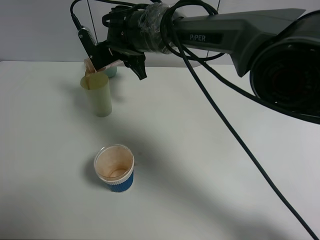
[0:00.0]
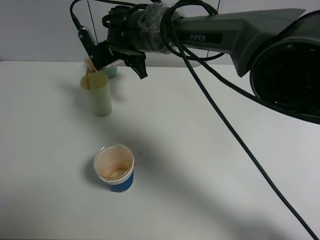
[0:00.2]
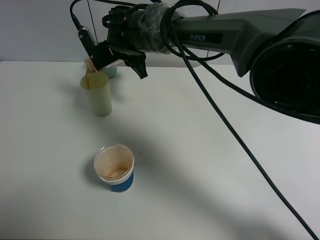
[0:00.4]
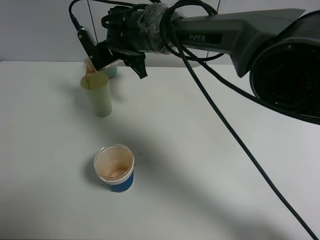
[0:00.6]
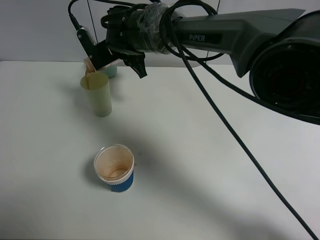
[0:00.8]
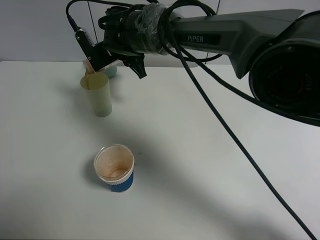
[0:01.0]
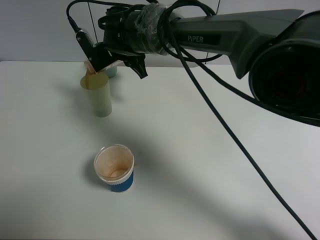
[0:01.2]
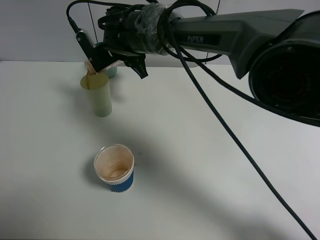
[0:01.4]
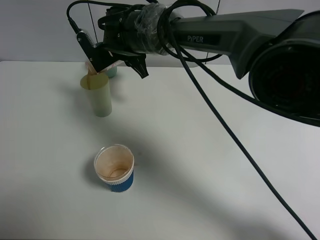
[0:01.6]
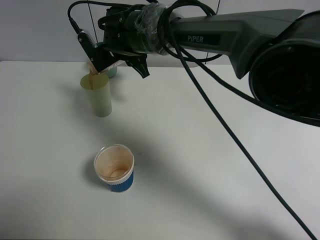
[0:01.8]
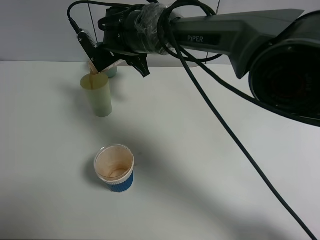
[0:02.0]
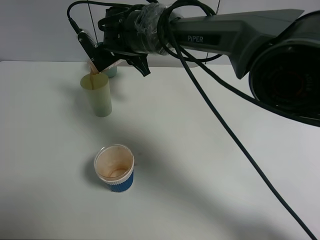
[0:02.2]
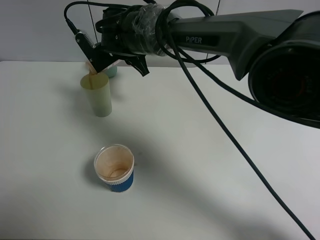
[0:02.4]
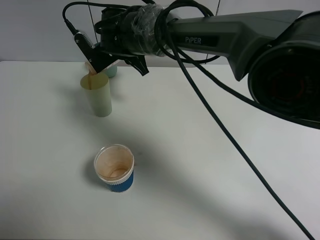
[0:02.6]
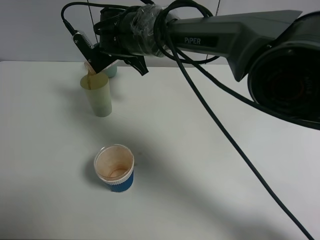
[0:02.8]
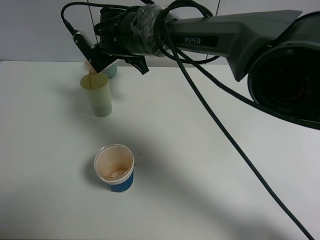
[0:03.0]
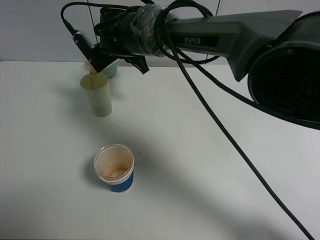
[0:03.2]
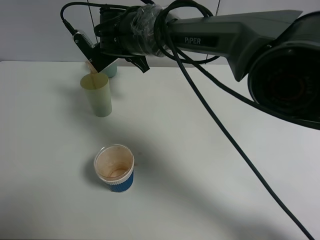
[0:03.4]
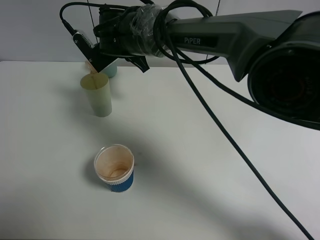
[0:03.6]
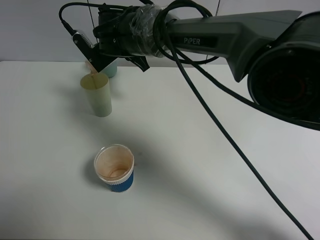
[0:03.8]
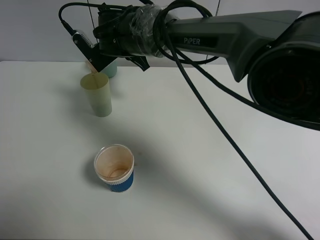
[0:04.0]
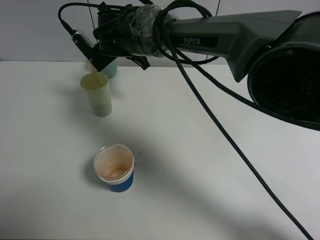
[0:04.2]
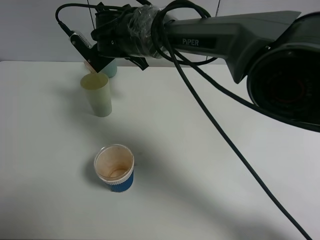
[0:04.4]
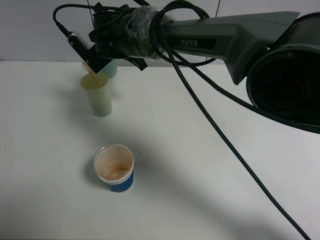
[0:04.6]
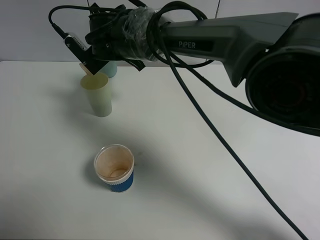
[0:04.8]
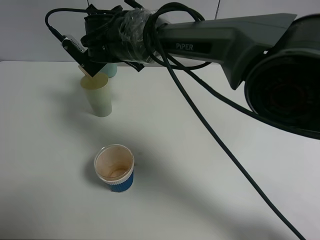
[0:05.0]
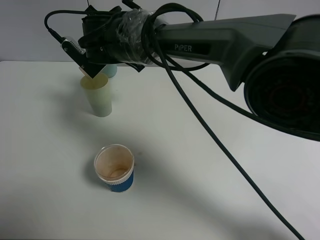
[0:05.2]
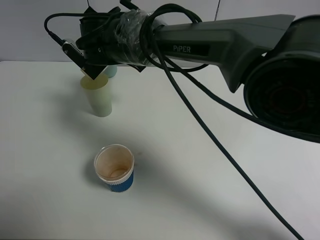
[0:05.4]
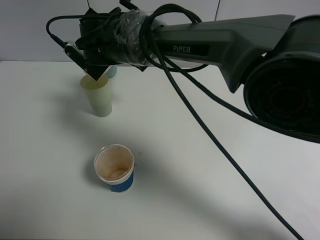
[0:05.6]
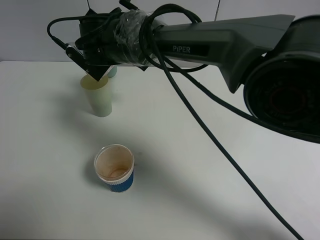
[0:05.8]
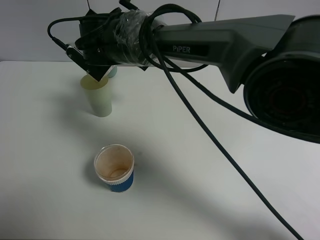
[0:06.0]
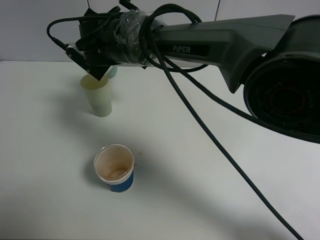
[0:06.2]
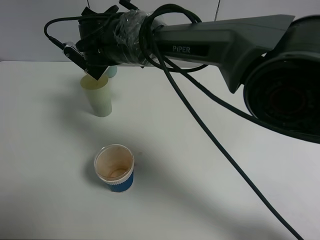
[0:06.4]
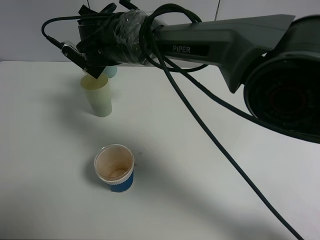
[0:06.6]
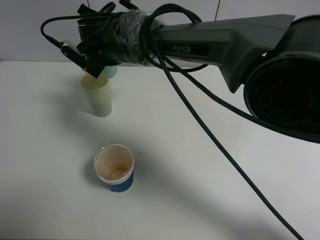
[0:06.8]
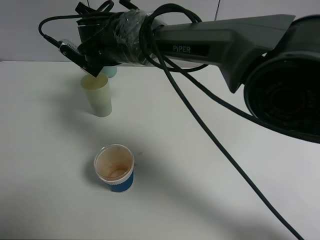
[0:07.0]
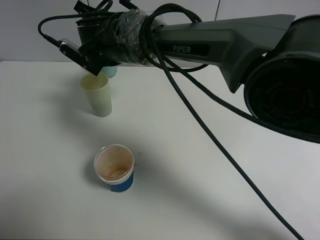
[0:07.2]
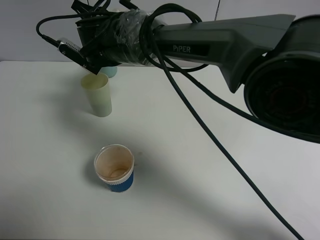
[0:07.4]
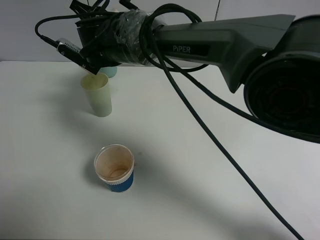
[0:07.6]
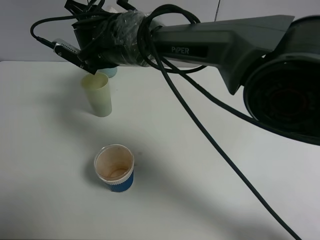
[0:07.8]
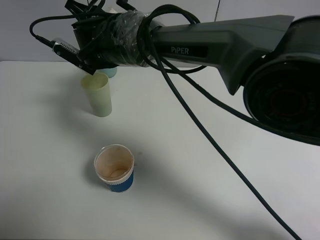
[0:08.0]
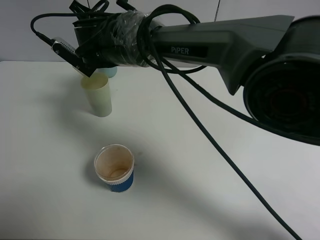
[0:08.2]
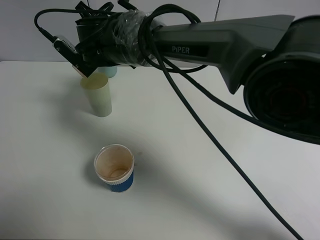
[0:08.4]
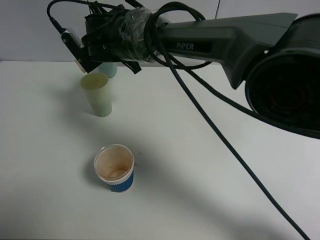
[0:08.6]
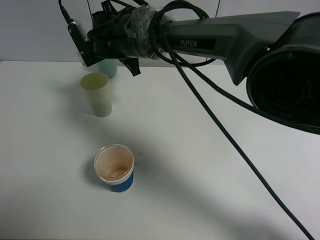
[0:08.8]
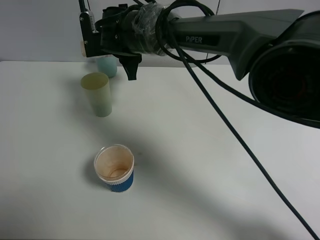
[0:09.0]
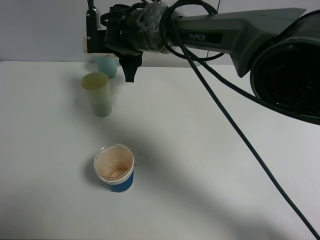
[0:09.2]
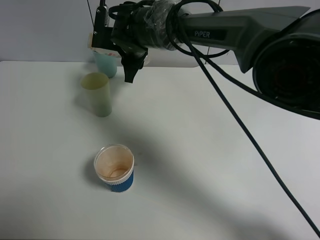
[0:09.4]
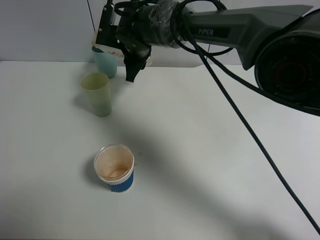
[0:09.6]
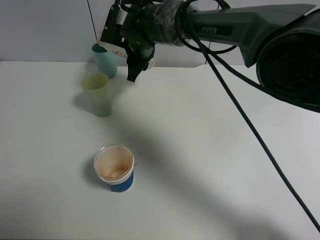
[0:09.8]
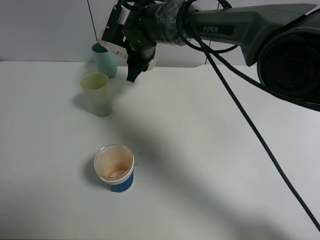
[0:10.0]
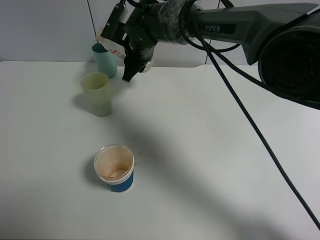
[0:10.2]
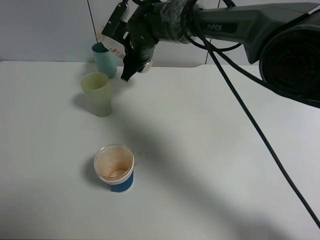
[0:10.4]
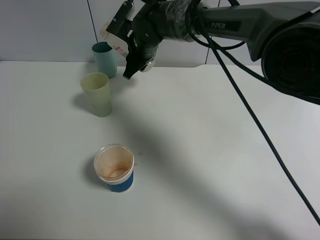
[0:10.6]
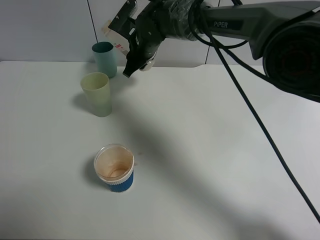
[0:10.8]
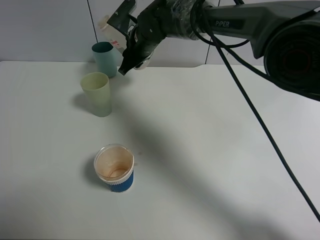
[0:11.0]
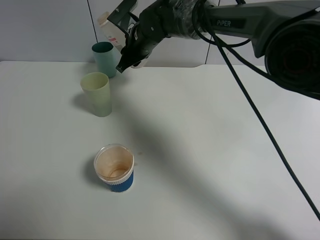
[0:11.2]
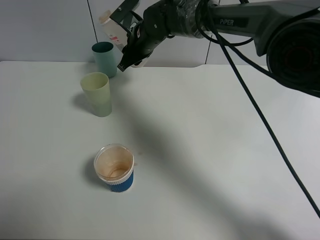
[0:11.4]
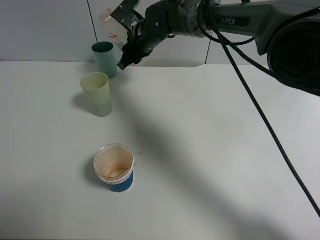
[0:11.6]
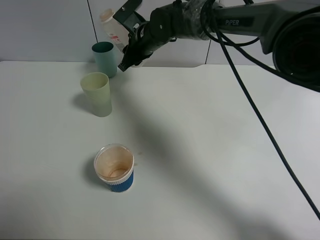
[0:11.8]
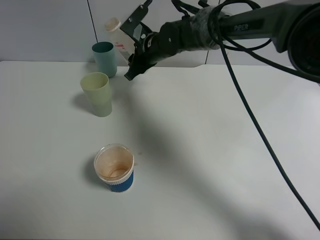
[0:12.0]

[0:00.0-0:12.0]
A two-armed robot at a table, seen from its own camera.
Task of the whole recording: use a clamp to hold the bottle of the drink, pour the beverage into a random cup, then clamp the cup containing the drink and pour the drink into another random cup.
Step, 0:00.0 to 0:08.2: Pour the drink into the green plastic cup with right gripper.
0:00.0 to 0:01.6: The two grippers keep their place.
0:01.6 to 0:04.4: The grippers move only a little.
0:04.4 to 0:07.6: The grippers move only a little.
0:10.4 to 0:12.0: The grippers make only small movements.

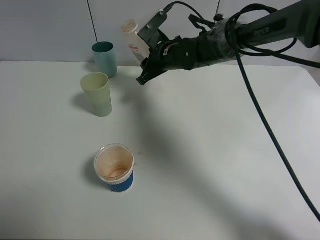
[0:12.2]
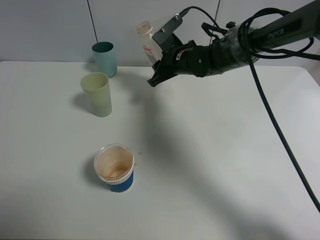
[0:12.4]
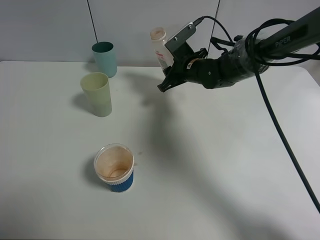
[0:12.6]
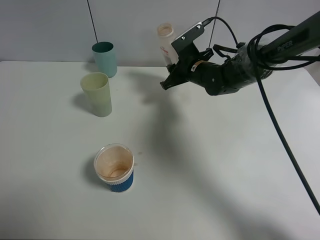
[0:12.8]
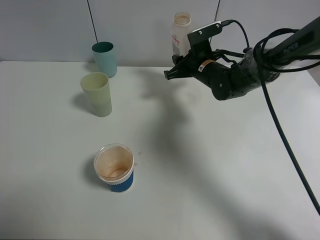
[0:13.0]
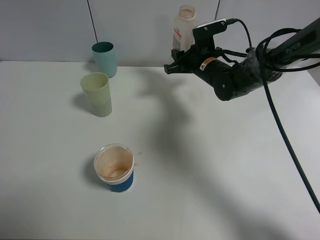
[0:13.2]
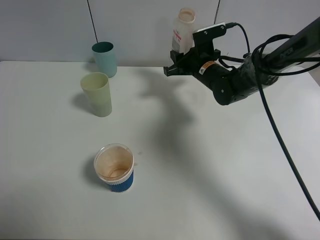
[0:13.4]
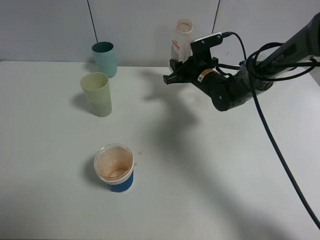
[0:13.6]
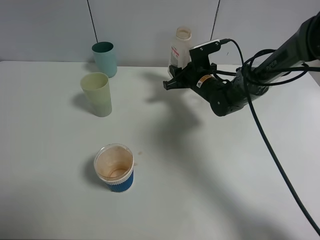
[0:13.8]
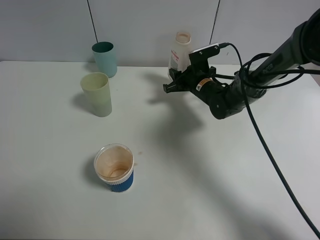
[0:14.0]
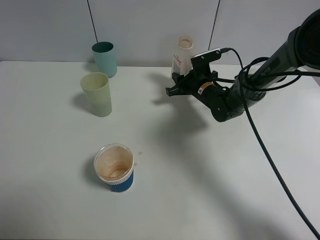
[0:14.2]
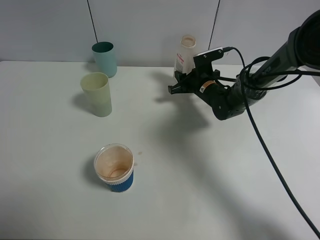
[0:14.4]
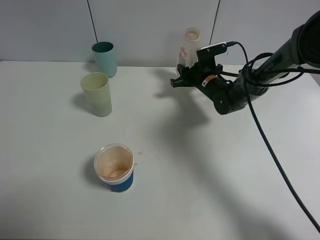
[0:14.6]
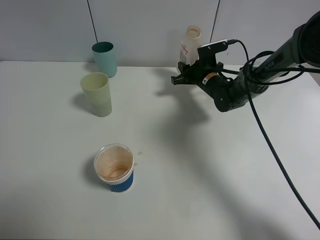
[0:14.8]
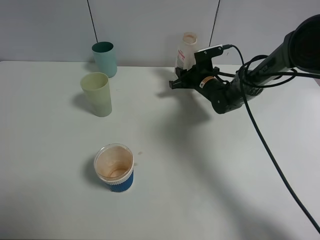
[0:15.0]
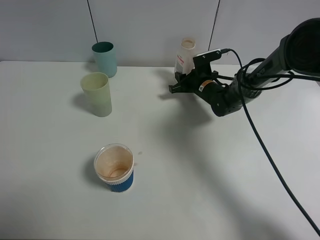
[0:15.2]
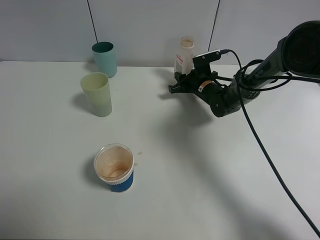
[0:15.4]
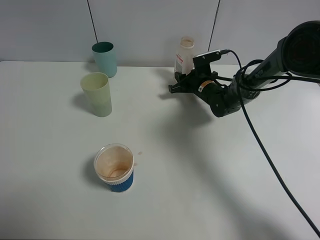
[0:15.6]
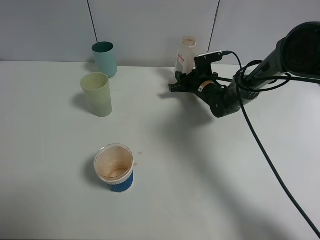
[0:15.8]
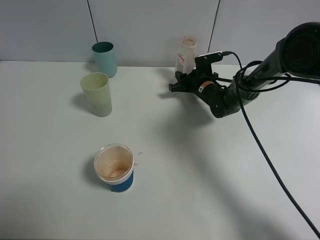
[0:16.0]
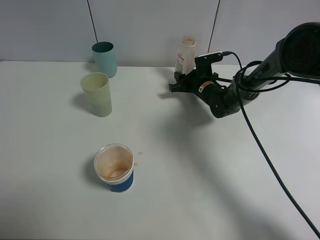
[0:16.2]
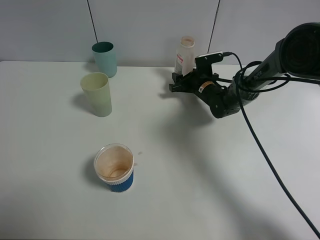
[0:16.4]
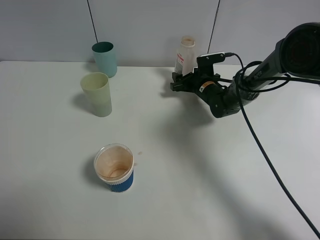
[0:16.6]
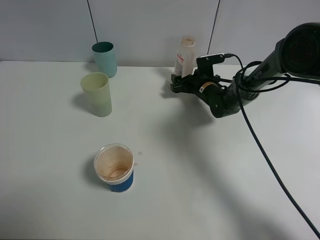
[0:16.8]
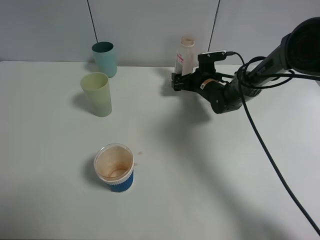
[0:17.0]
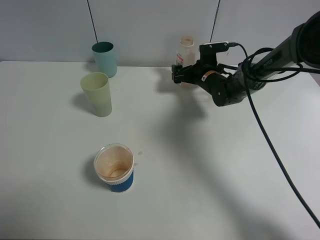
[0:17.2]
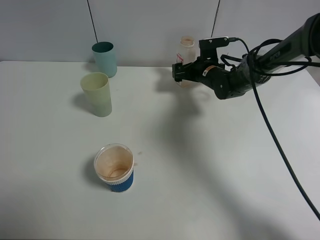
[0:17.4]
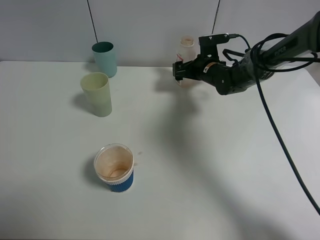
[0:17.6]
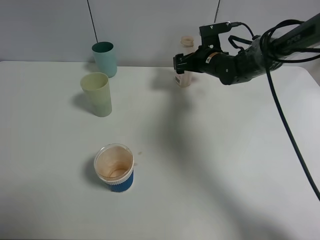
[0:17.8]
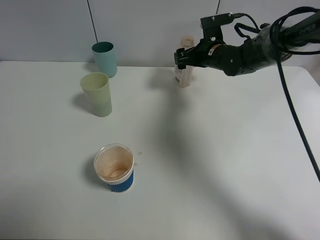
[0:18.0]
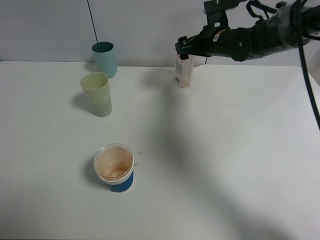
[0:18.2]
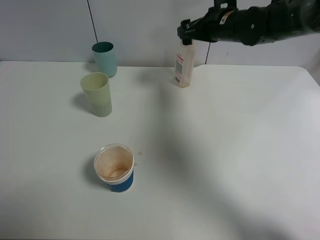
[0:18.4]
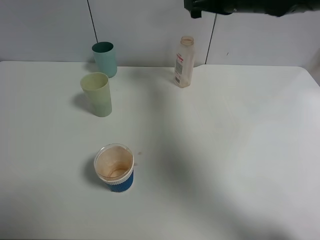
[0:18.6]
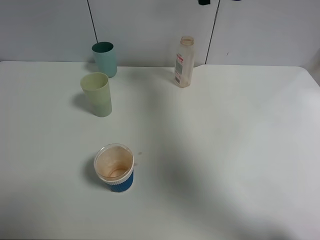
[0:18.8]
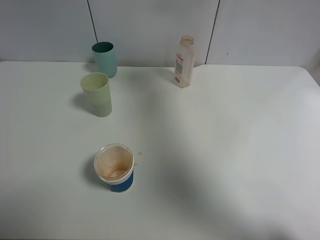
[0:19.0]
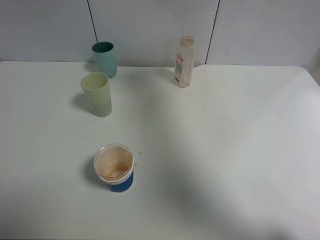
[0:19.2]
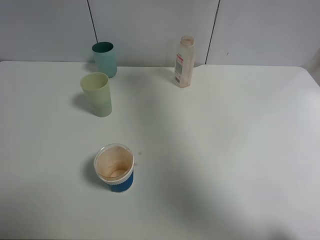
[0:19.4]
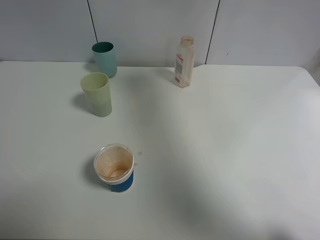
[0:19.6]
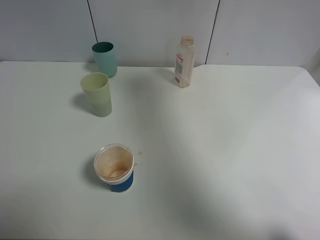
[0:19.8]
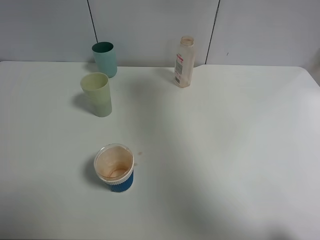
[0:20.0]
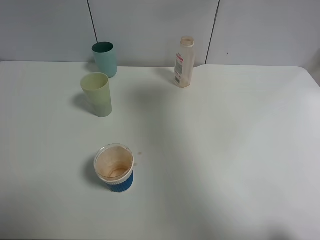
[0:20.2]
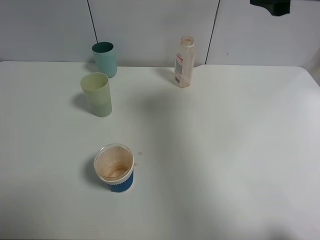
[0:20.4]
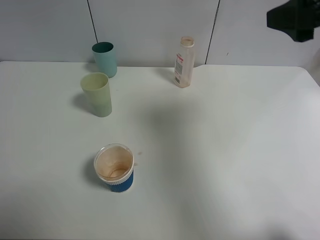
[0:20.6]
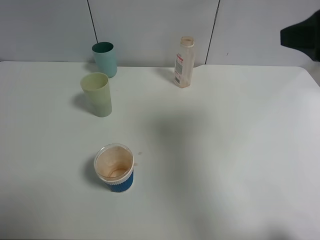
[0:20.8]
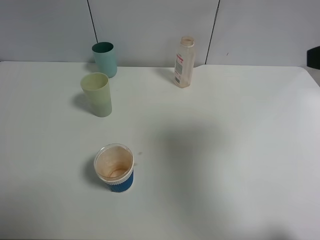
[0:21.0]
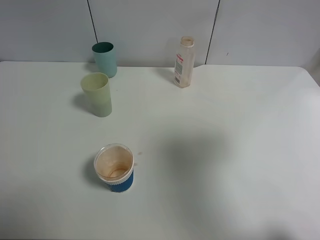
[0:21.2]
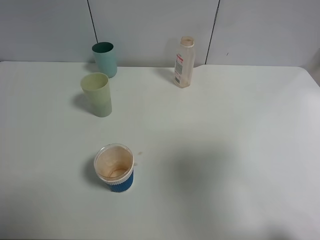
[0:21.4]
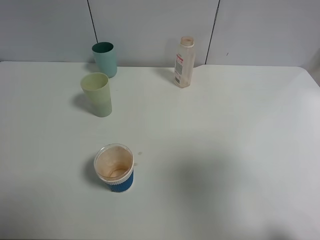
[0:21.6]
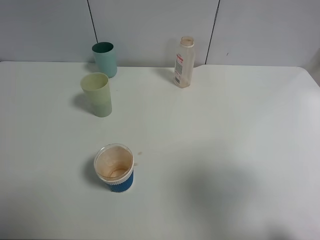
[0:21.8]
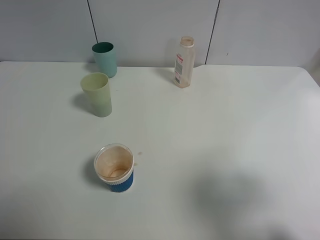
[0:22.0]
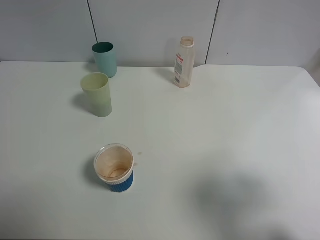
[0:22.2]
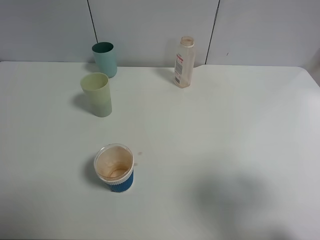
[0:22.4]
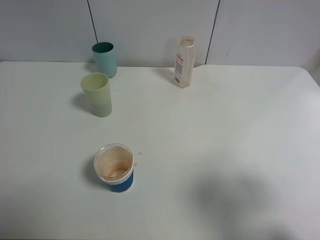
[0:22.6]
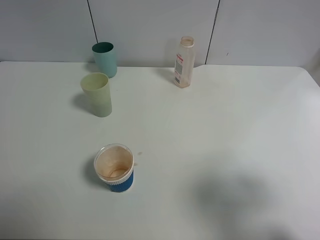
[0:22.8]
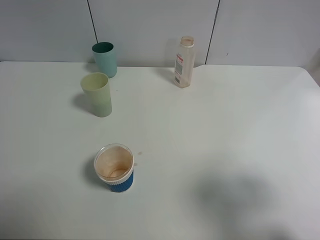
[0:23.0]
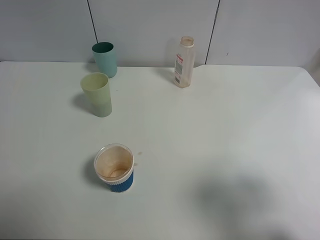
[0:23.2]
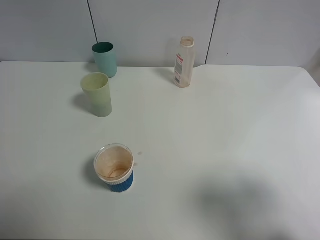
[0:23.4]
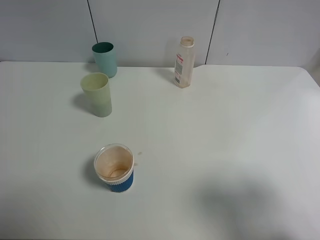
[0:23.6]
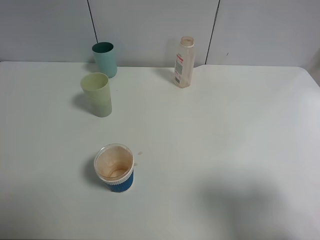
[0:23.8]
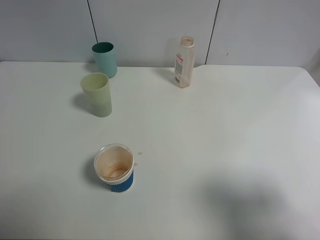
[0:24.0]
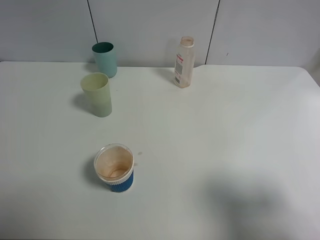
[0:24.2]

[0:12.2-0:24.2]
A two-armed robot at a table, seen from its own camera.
Task of the whole recording: use a clamp to hold the bottle of the drink, pour the beverage into a random cup, then clamp the cup containing the drink and pour the drink into another random cup.
Step, 0:12.2 to 0:17.2: Place the drink bottle on the table with right gripper.
0:12.2 to 0:13.8: The right gripper moves to the right and downward, some 10 cm.
0:13.8 to 0:15.2: The right gripper moves roughly 5 cm.
0:15.2 to 0:16.6: The right gripper opens.
0:16.6 to 0:18.2: The right gripper is displaced upward by approximately 15 cm.
0:18.2 to 0:19.8: The right gripper moves upward and backward, approximately 25 cm.
0:19.8 to 0:21.2: The right gripper heads backward, covering approximately 20 cm.
0:21.2 to 0:22.6: The right gripper goes about 10 cm downward and backward.
